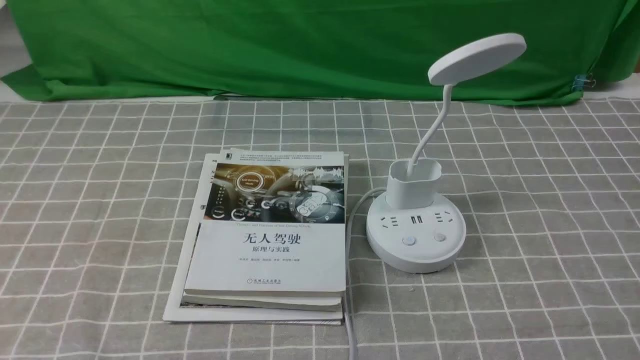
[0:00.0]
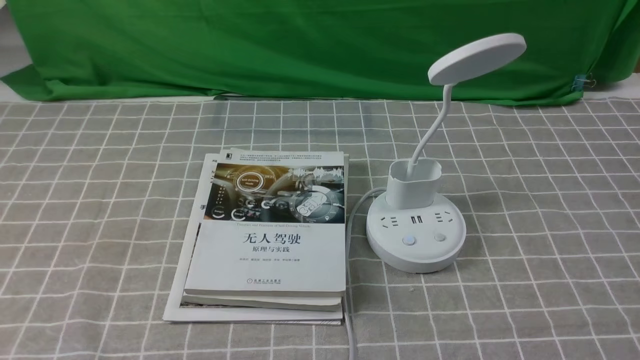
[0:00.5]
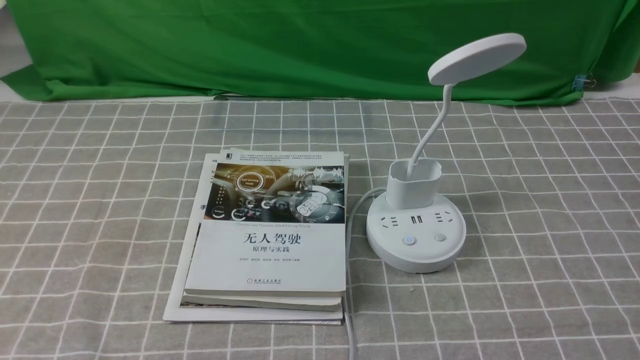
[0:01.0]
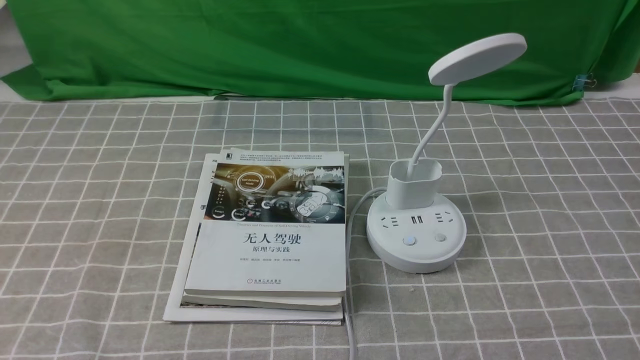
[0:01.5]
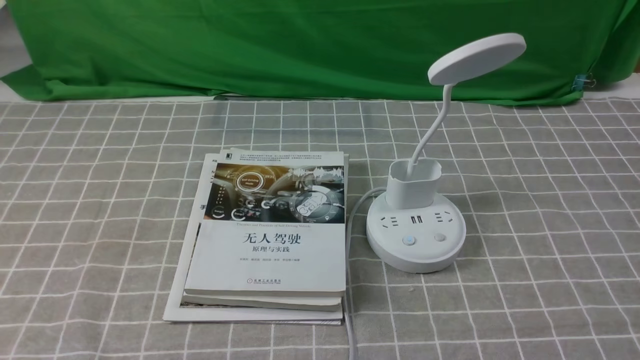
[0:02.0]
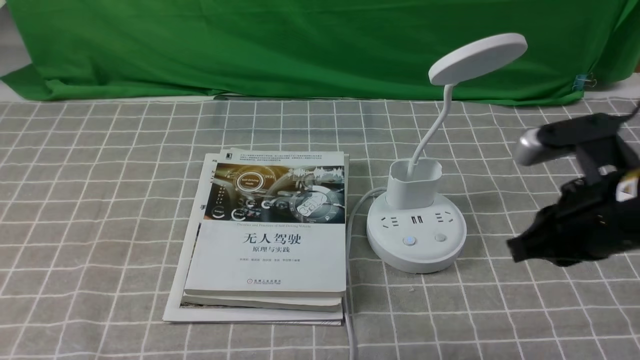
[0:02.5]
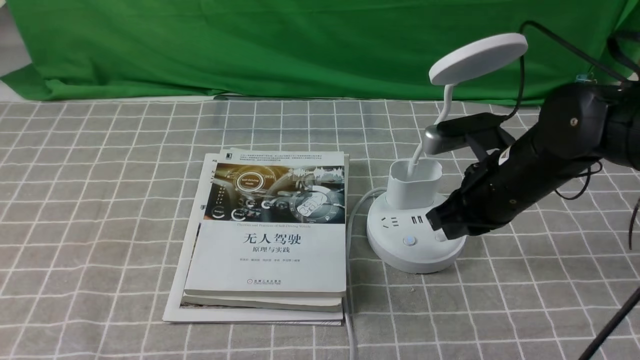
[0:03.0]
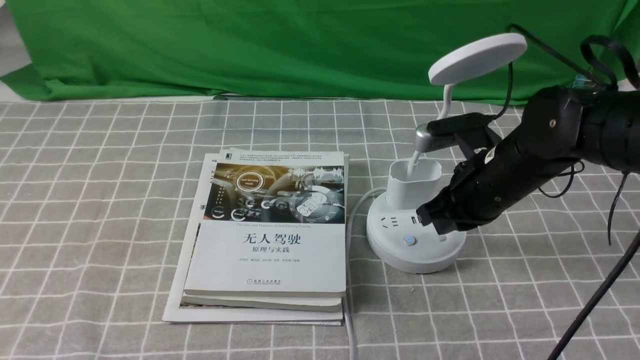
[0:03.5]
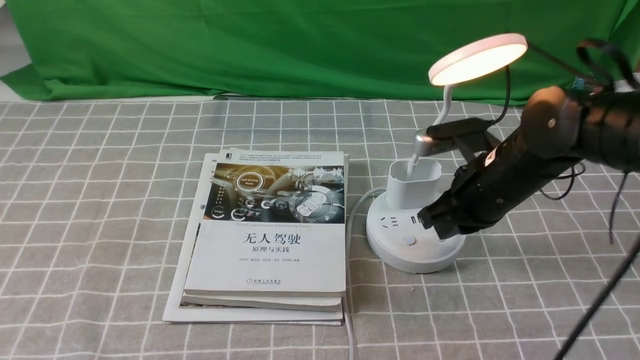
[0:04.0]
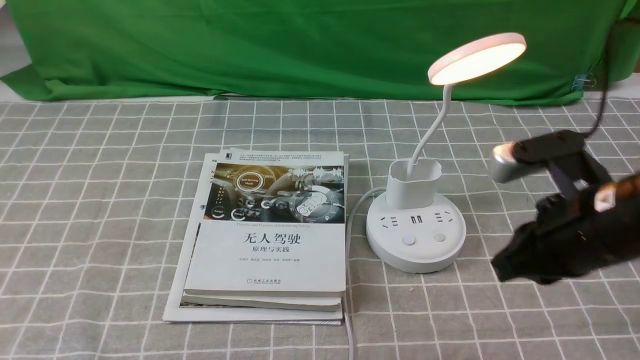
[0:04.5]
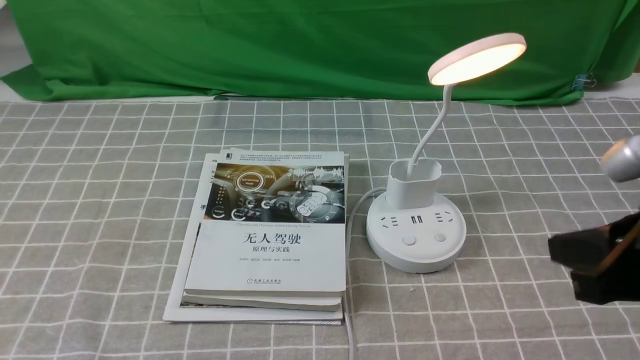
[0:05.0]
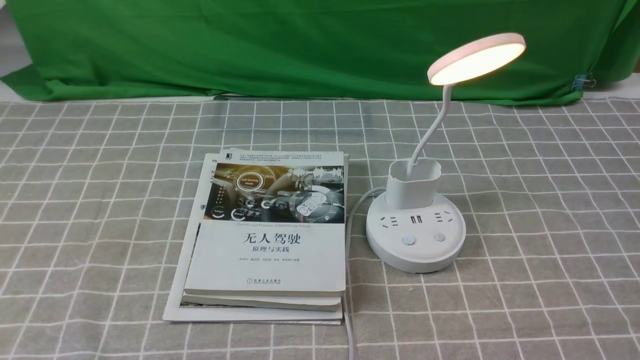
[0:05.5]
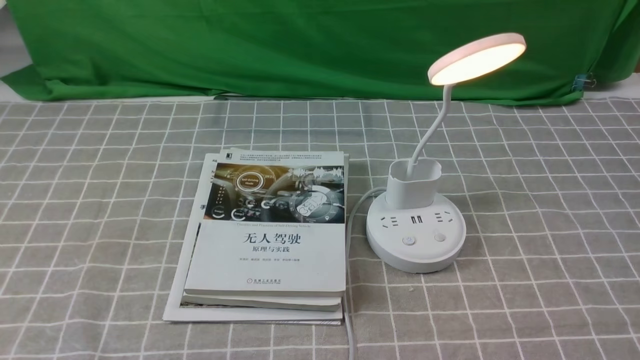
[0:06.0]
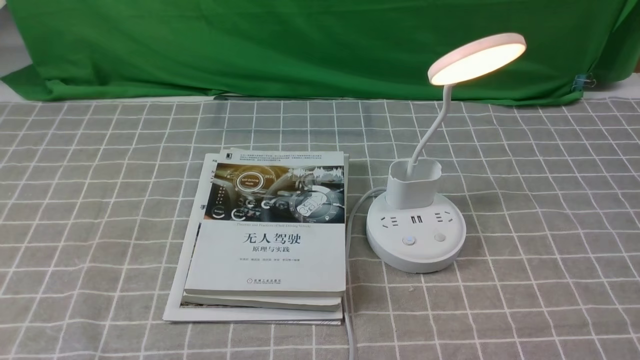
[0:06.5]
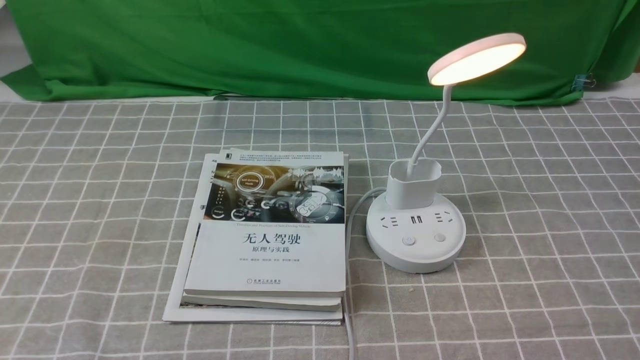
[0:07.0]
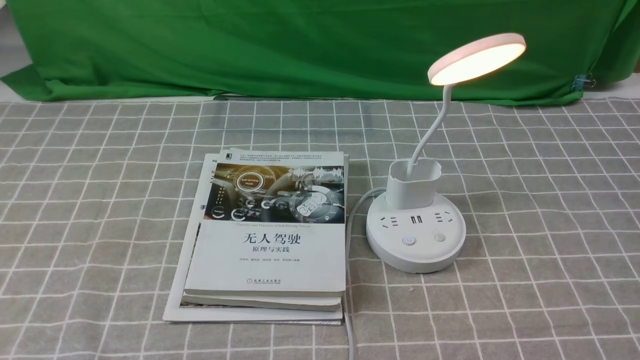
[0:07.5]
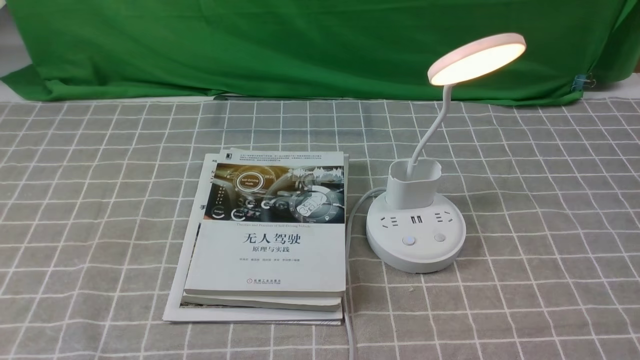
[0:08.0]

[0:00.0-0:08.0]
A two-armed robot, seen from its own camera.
Step, 0:00.0 to 0:04.0: use the right arm to press the button switch on the lamp holder.
0:02.0 to 0:04.0: The right gripper goes roughly 25 cm forward and to the left.
0:04.0 to 0:06.0: The right gripper travels backward and to the right by roughly 30 cm.

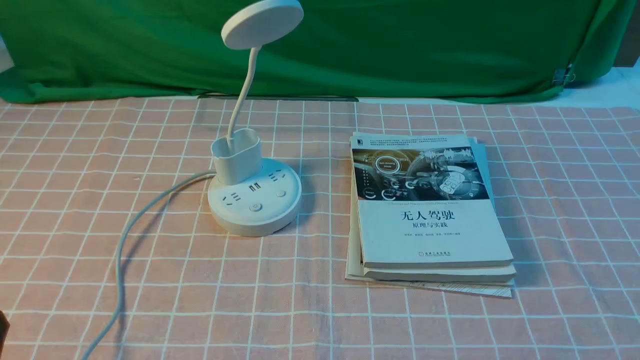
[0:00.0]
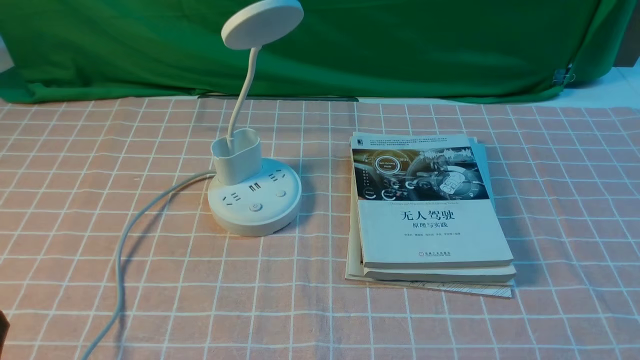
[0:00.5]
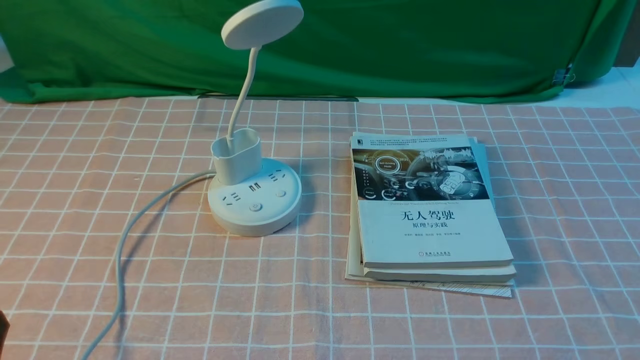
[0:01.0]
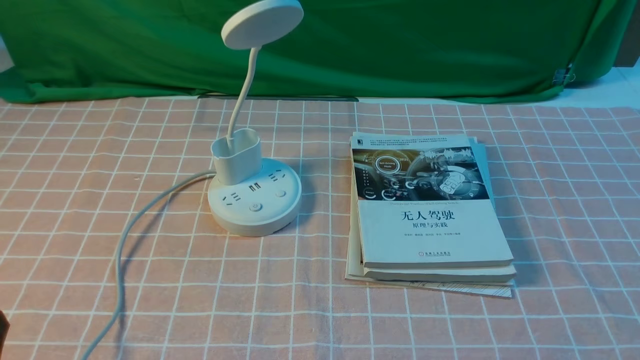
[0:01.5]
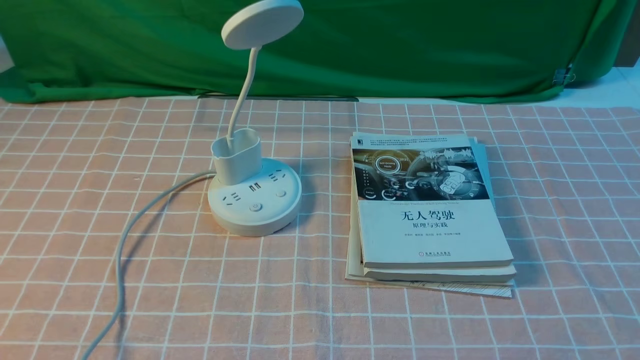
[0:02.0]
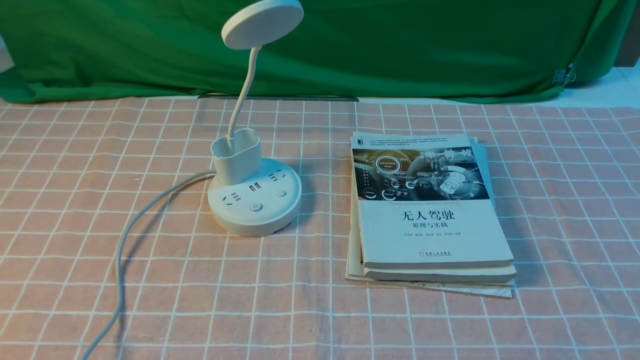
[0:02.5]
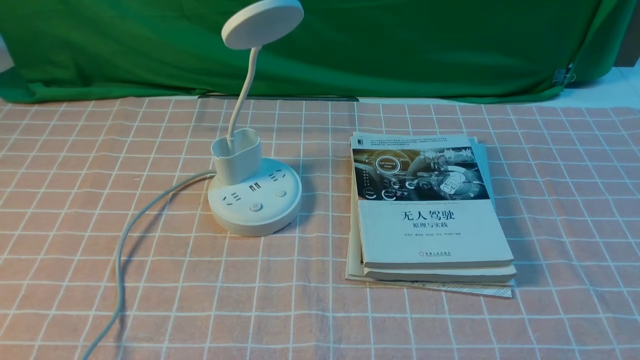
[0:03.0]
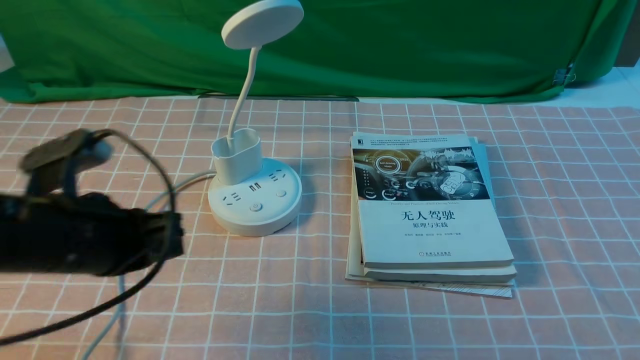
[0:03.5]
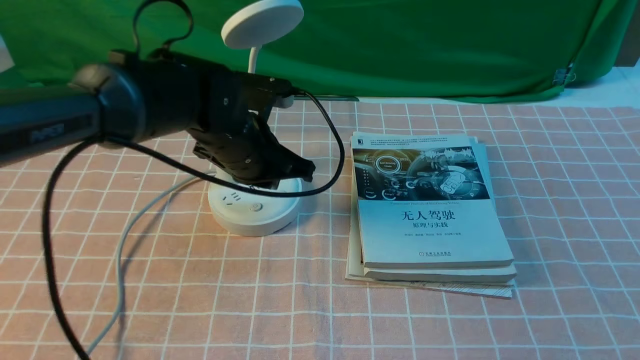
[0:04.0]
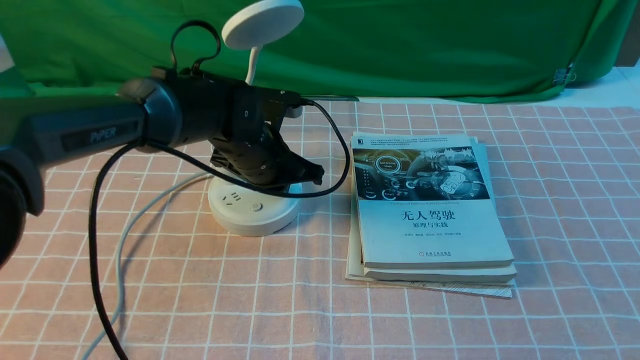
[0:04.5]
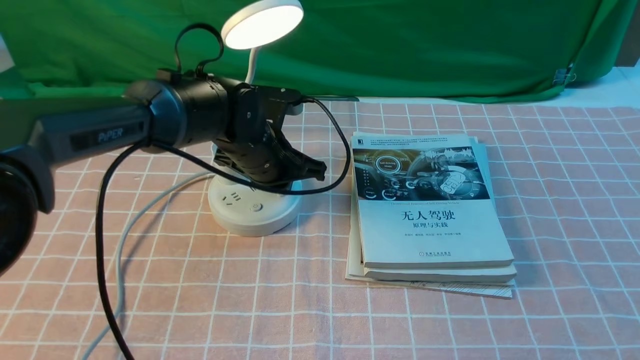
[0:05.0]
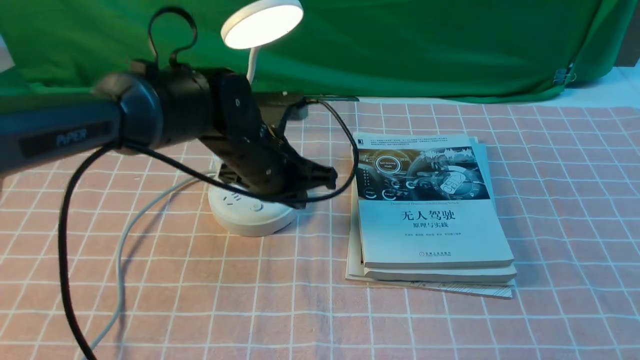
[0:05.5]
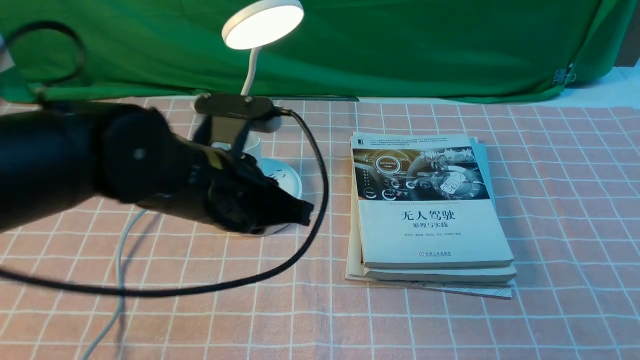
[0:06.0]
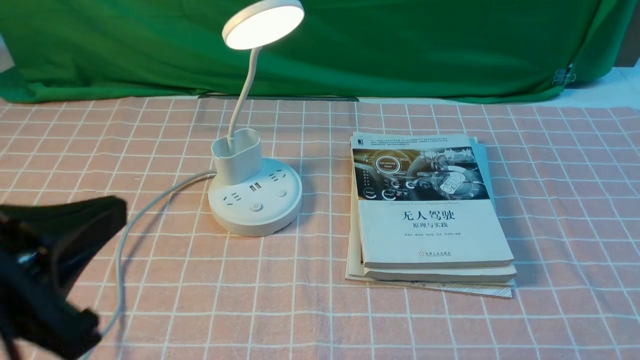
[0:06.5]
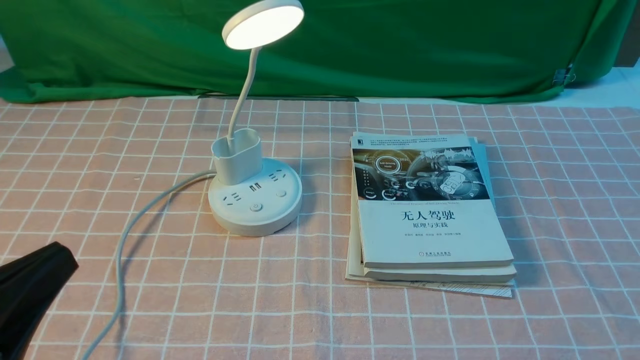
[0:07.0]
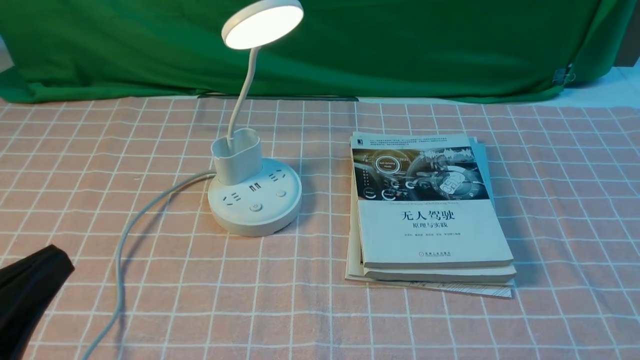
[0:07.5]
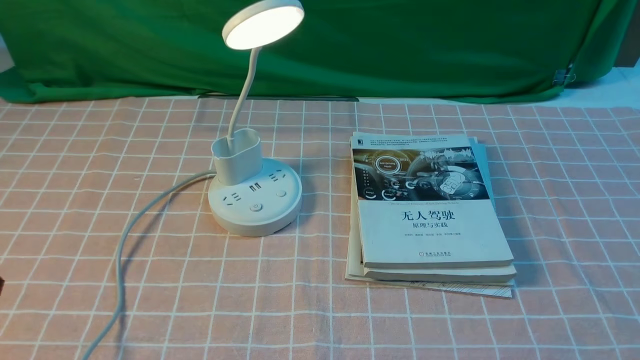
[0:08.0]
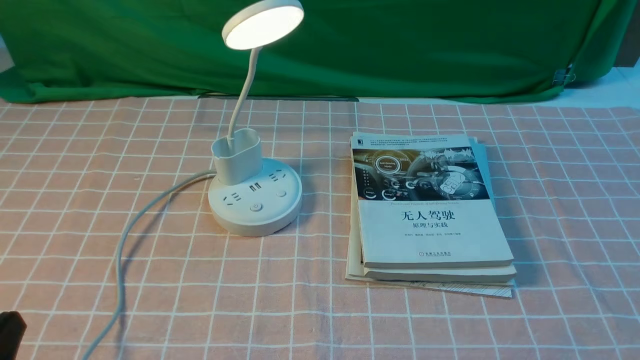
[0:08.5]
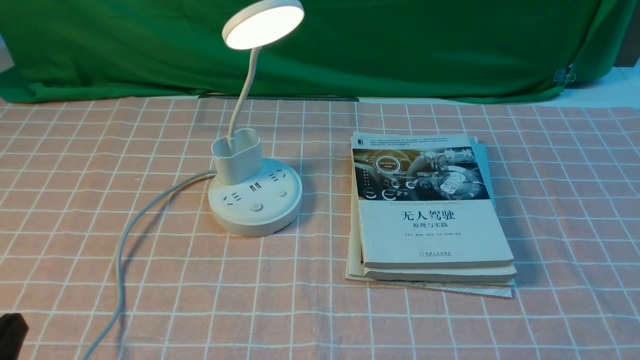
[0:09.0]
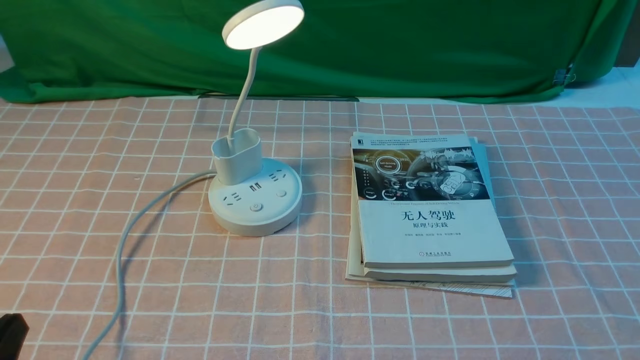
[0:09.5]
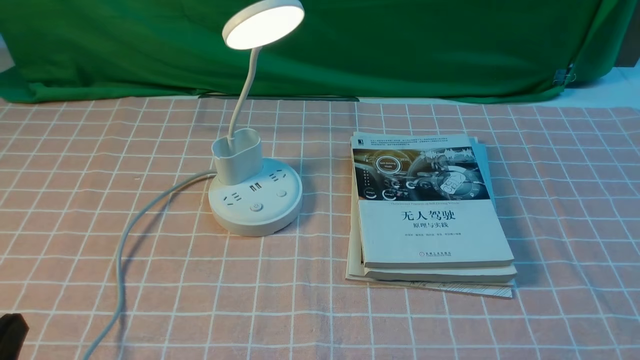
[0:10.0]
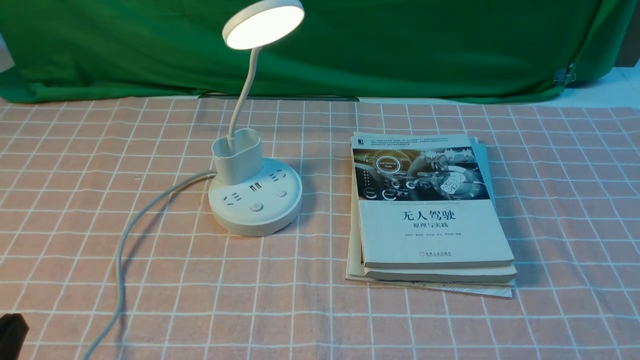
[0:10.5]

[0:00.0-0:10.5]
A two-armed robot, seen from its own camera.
Step, 0:00.0 to 0:05.0: use the left arm to press the button switch on the lamp holder.
0:02.0 to 0:04.0: The left gripper shifts approximately 35 cm forward and to the right, and closes up.
0:04.0 to 0:06.5: The left gripper goes approximately 30 cm backward and to the left.
0:06.5 to 0:08.5: The left gripper moves downward and to the left, about 15 cm.
0:08.5 to 0:10.5: Both grippers stay about where they are.
